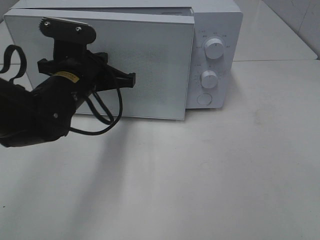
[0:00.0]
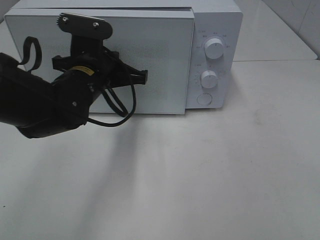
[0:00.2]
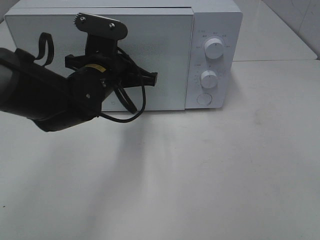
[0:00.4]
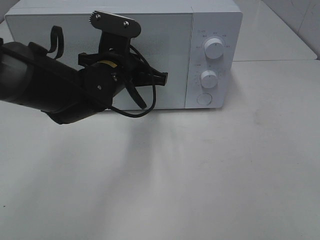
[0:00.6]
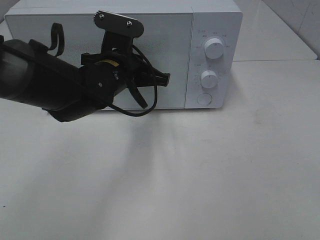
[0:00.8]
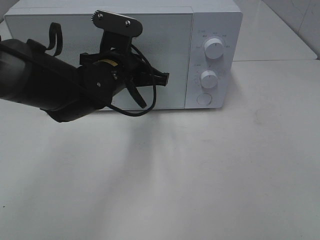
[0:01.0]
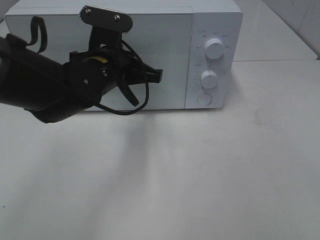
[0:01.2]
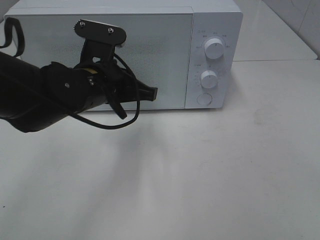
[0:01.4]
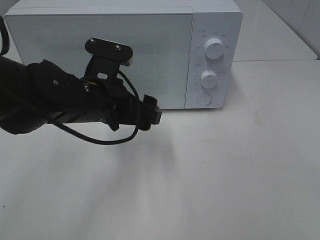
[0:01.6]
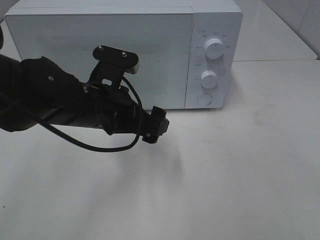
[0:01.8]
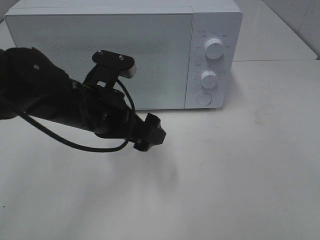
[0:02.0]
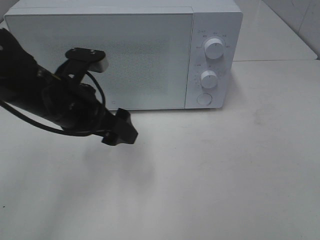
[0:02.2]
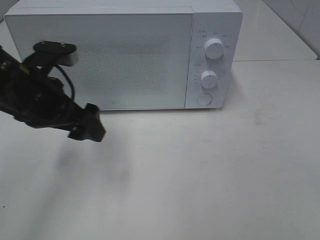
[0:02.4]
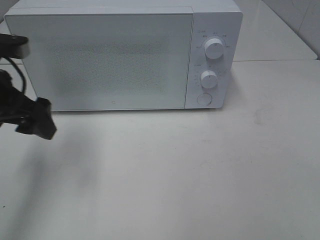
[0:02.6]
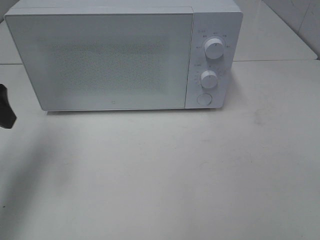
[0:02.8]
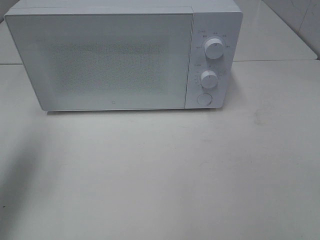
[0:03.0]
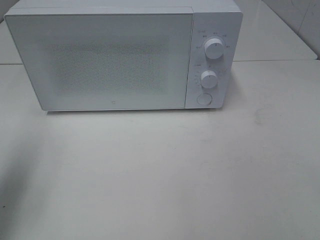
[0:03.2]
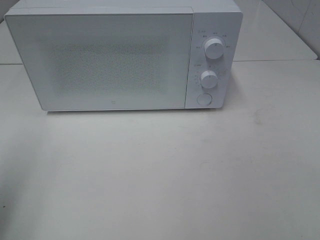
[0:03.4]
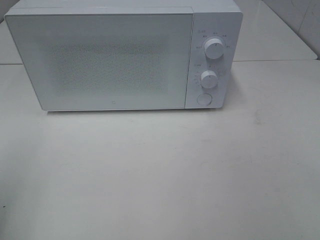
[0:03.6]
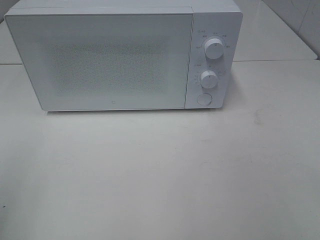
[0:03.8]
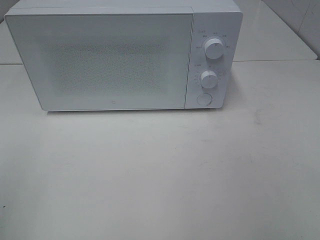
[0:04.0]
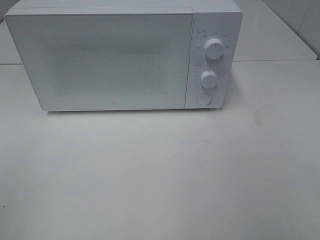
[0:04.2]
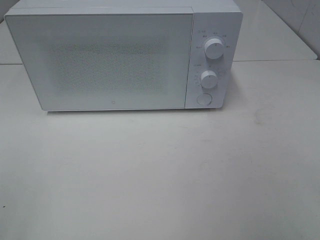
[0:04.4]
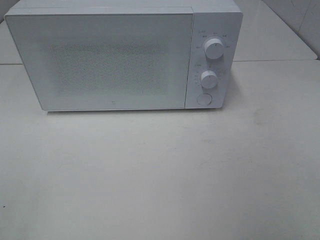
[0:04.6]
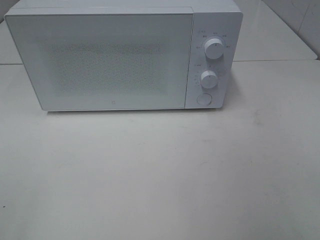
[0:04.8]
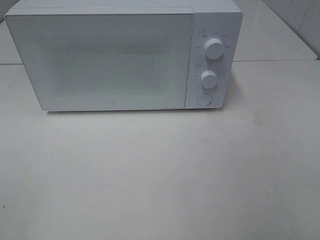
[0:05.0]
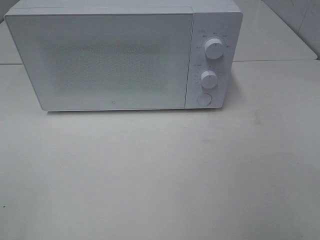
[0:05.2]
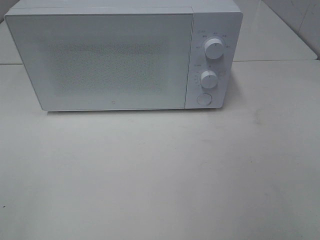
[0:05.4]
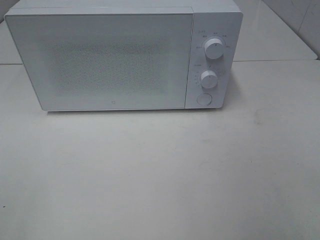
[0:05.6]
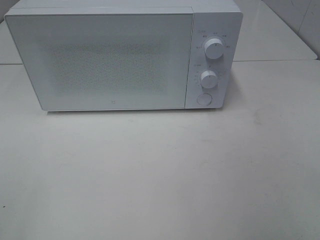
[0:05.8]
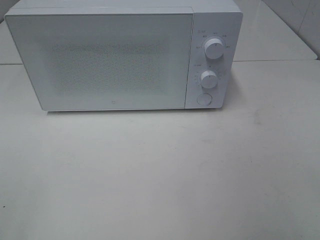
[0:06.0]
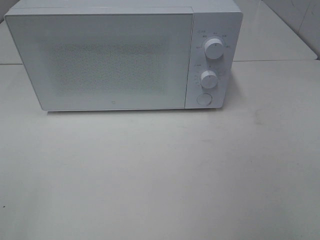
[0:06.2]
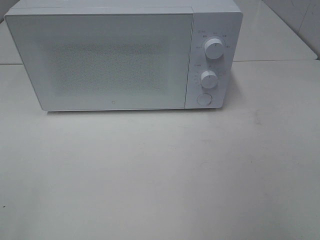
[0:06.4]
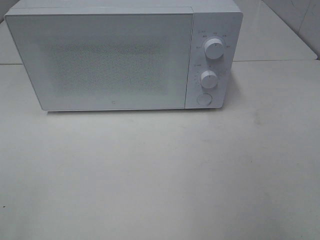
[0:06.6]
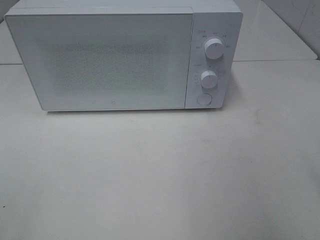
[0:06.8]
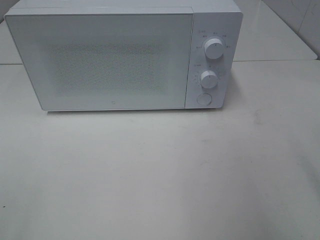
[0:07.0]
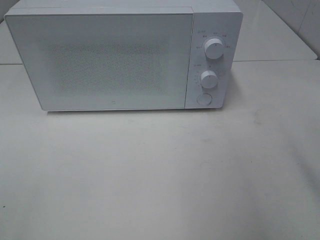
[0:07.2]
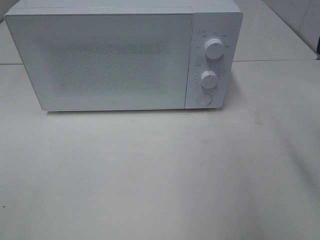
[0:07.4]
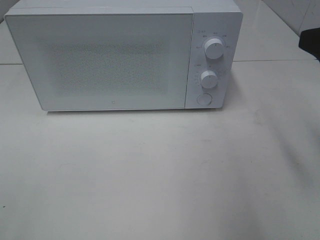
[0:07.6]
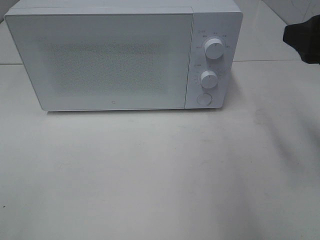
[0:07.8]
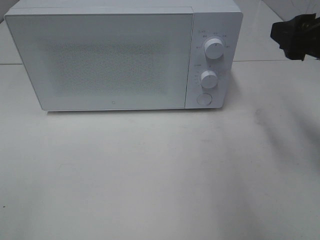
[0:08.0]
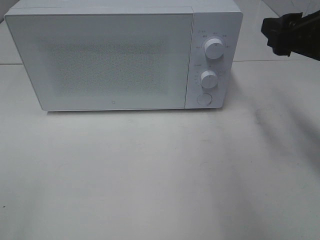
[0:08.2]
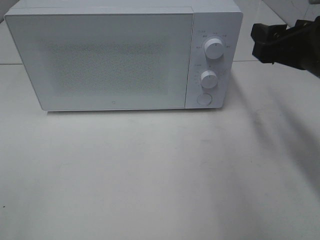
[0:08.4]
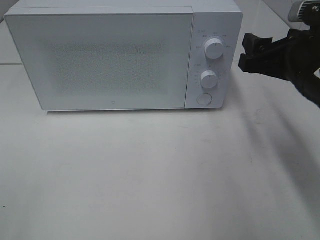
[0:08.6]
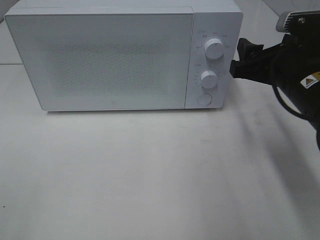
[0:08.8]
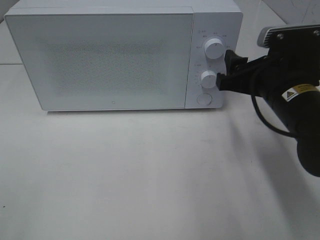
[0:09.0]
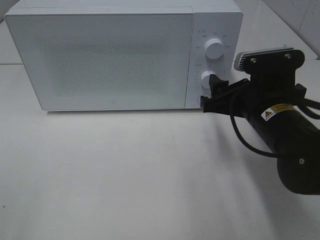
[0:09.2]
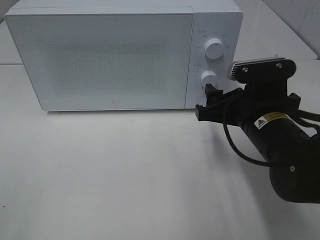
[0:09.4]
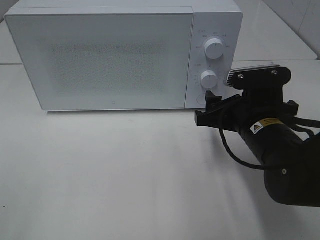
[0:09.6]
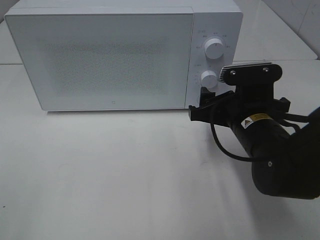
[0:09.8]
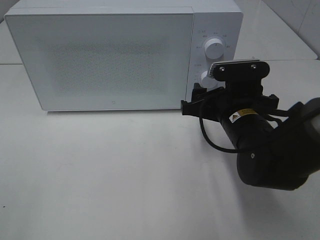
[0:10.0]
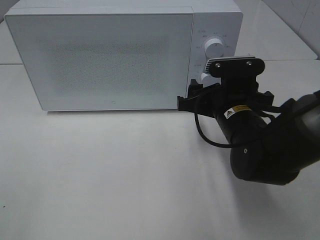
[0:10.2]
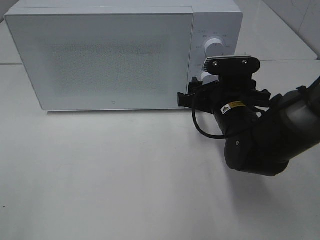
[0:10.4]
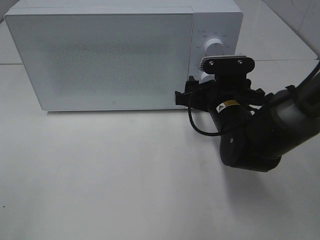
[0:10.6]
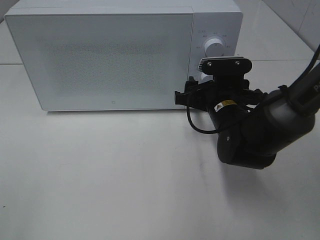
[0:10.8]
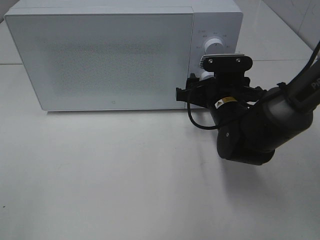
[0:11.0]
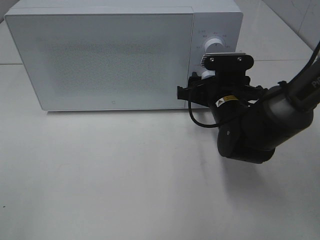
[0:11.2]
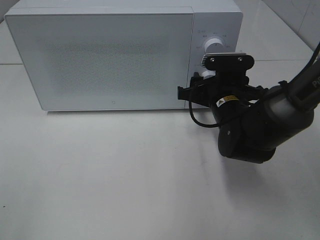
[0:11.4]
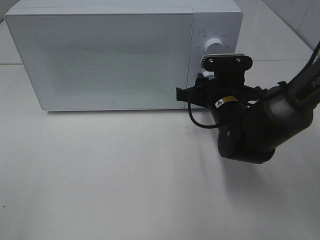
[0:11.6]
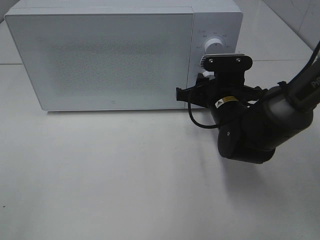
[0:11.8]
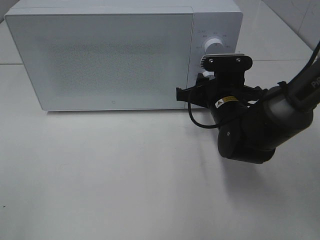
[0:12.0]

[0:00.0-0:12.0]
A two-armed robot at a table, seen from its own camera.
Task of the whole recording: Heat the burger.
Step, 0:00.0 to 0:02.0: Left hand: close the microwave door.
0:00.0 to 0:01.6: The left gripper moves roughly 5 cm, and opens its fingers.
0:01.6 to 0:03.0: The left gripper heads to the left and upward, covering about 25 cm.
0:03.0 to 0:04.4: The left gripper travels backward by about 20 cm.
0:06.0 to 0:07.6: The right gripper heads forward, covering roughly 20 cm.
0:07.6 to 0:09.0: The right gripper heads downward, to the left and forward, covering some 15 cm.
0:09.0 to 0:10.4: The right gripper moves downward and to the left, roughly 10 cm.
0:10.4 to 0:12.0: The right gripper closes.

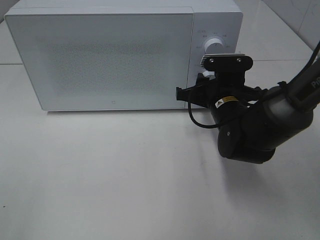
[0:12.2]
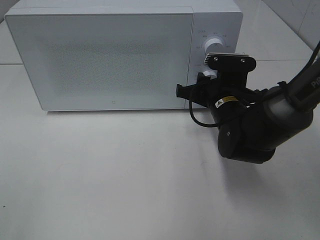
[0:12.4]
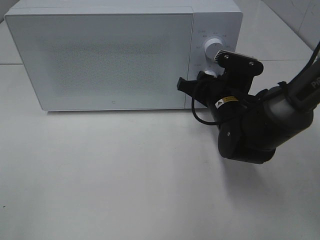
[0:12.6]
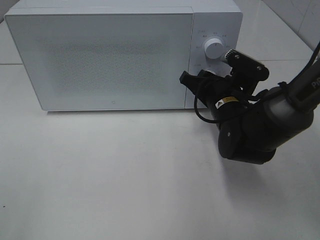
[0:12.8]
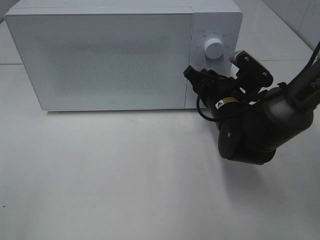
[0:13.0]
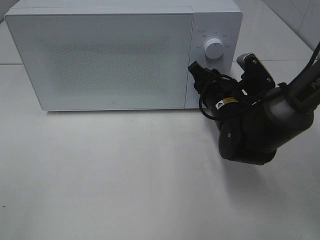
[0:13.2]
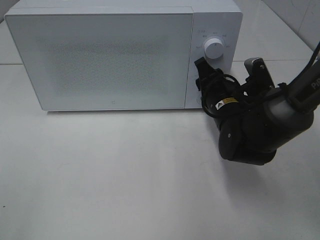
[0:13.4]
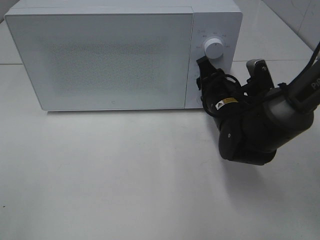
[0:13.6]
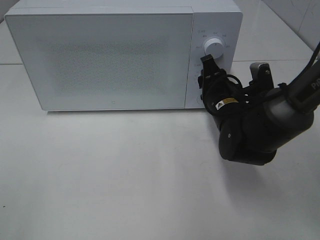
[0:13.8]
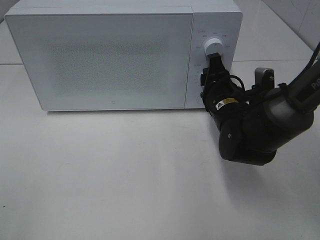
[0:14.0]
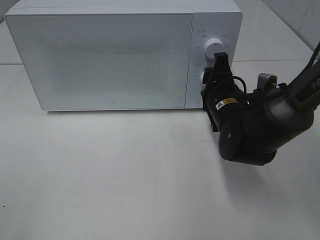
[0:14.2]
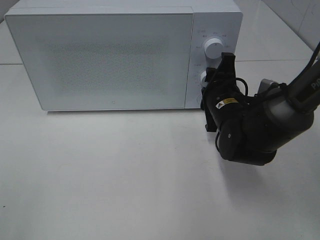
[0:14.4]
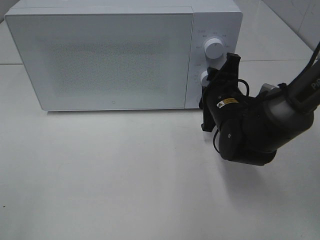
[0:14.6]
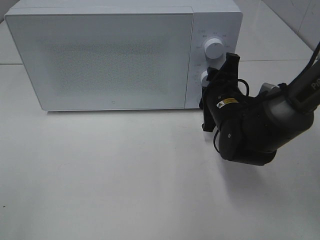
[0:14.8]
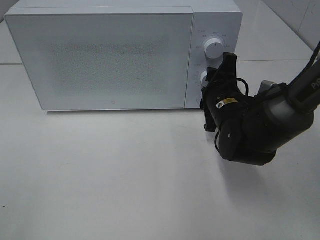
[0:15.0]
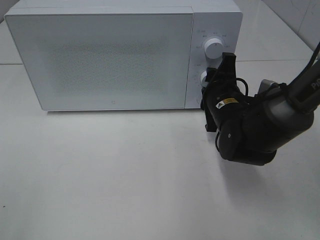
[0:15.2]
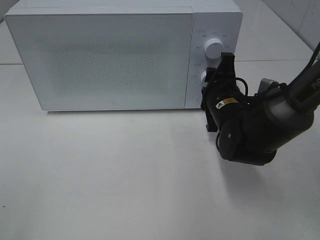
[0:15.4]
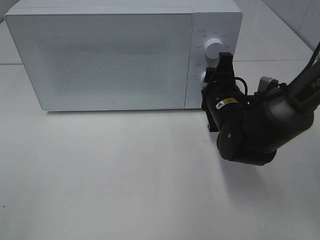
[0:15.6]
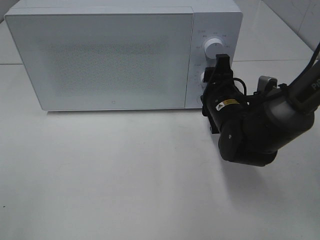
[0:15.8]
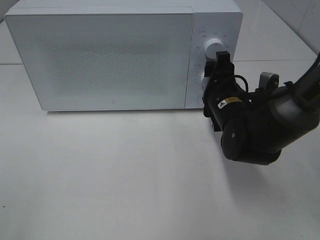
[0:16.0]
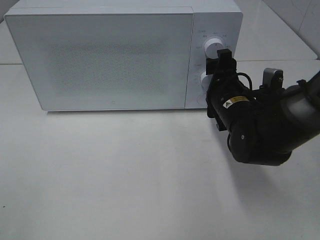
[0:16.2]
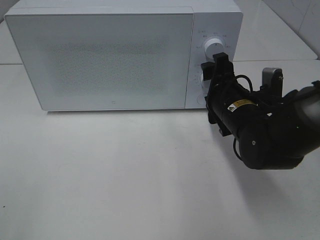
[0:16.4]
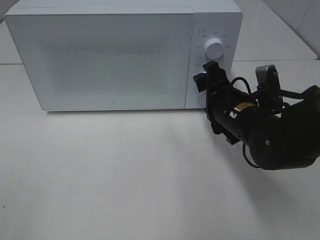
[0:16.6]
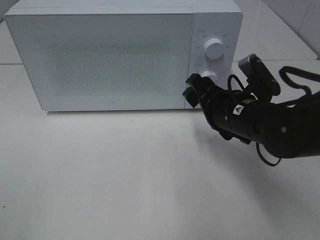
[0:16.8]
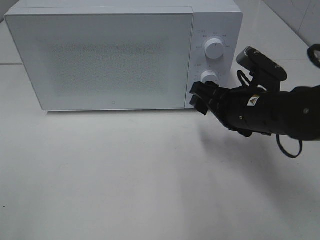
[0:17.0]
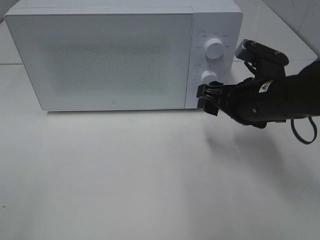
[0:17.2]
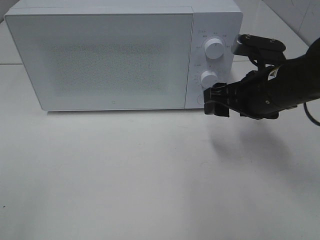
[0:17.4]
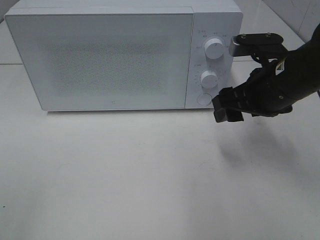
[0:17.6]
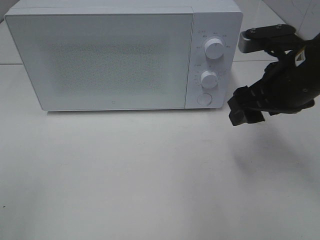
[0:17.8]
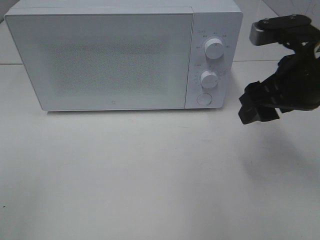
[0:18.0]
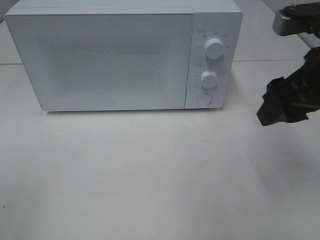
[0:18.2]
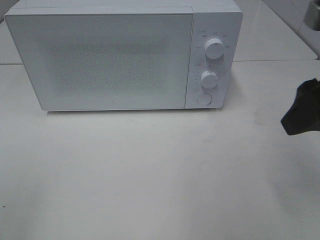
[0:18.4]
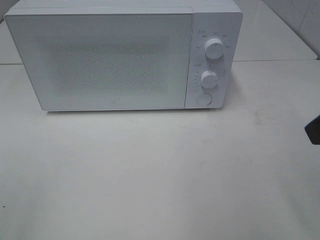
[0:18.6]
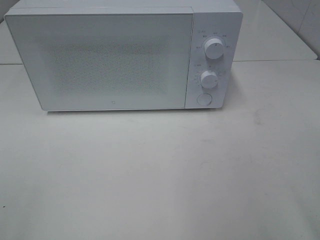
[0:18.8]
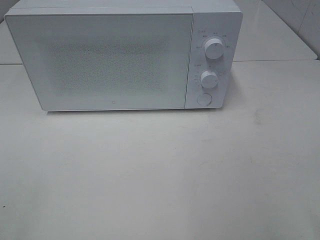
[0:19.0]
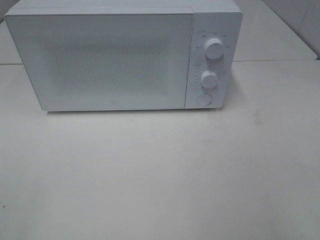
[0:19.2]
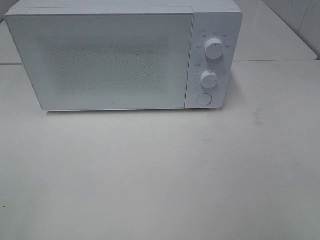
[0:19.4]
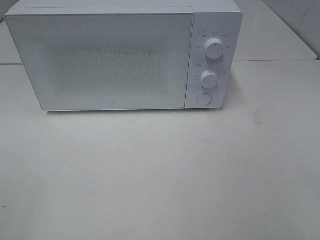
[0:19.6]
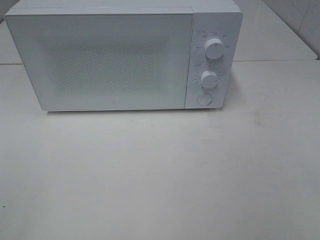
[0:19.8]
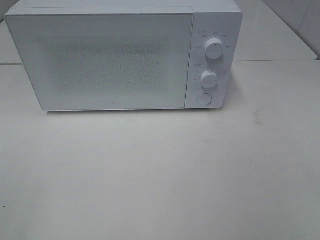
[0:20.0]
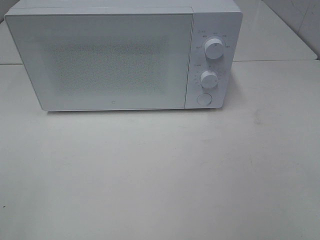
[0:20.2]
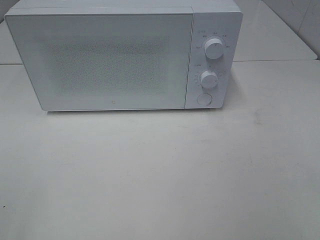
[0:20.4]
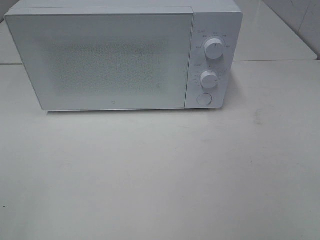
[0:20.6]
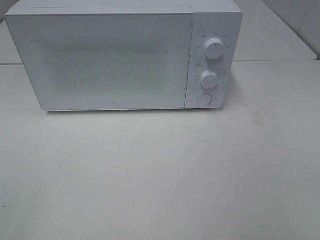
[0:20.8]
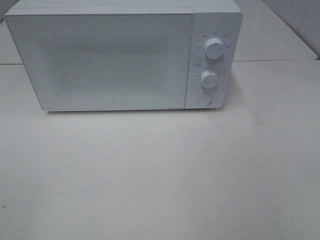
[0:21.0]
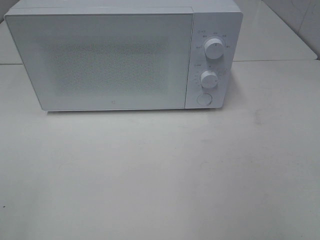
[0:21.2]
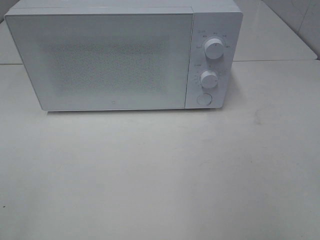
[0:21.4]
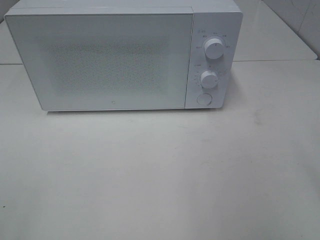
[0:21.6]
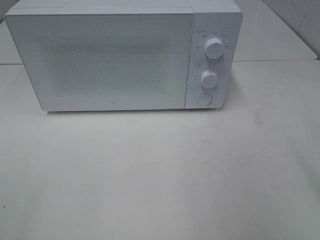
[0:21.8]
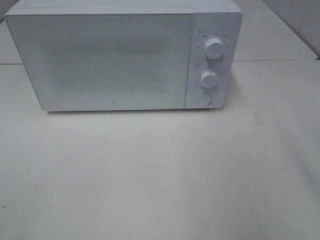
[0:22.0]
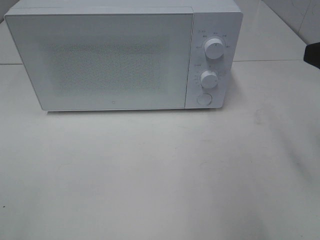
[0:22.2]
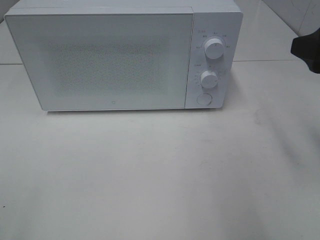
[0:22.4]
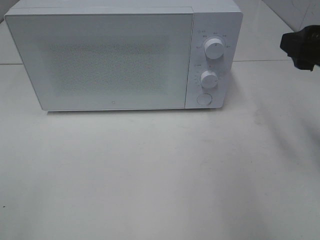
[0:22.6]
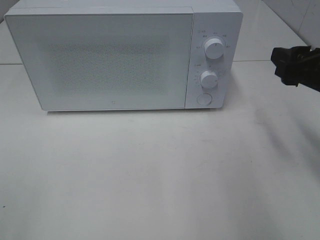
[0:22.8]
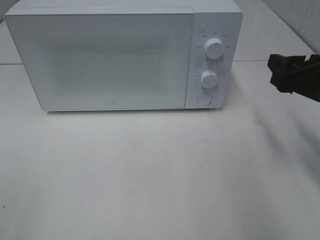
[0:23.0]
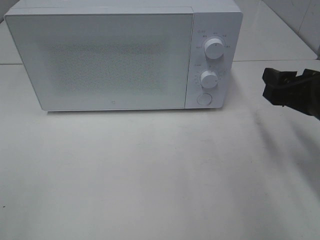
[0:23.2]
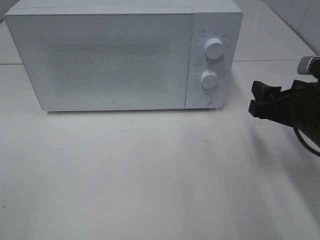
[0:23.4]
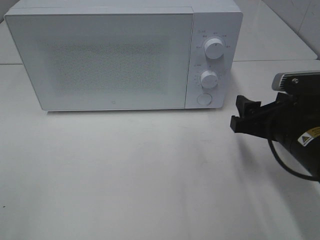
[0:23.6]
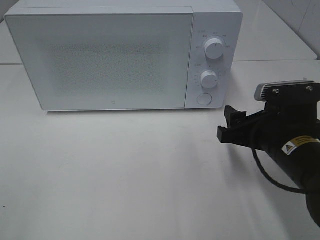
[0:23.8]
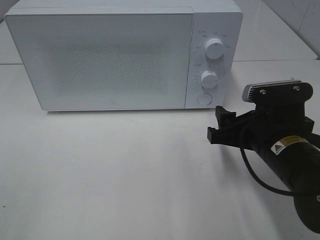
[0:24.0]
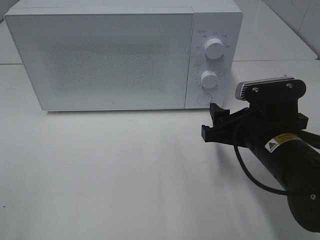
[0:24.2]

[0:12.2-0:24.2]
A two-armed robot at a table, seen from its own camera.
Task of the whole recording: Heat the burger.
Step, 0:12.2 to 0:16.0: Right hand: twist timer button.
0:15.2 to 0:16.6: The right gripper opens its fingers.
0:16.6 to 0:18.2: The right gripper heads upward, backward and to the right, covering roughly 20 cm.
0:18.2 to 0:19.8: The right gripper travels backward by roughly 20 cm.
0:21.2 to 0:22.6: The right gripper is displaced forward by some 20 cm.
0:22.6 to 0:24.2: The right gripper heads downward and to the left, covering some 15 cm.
